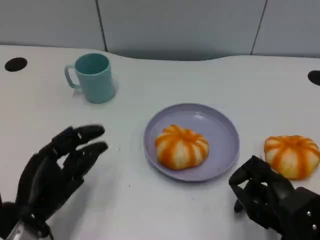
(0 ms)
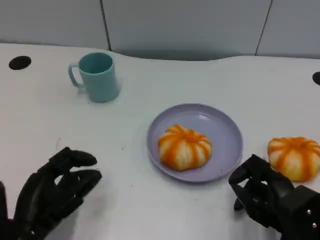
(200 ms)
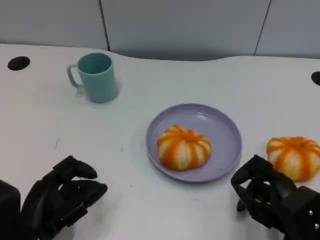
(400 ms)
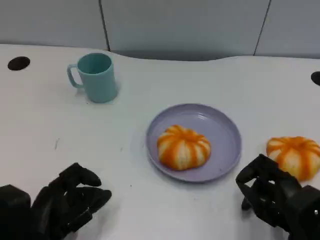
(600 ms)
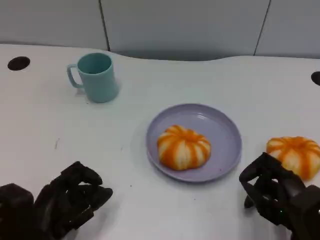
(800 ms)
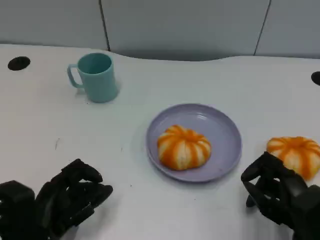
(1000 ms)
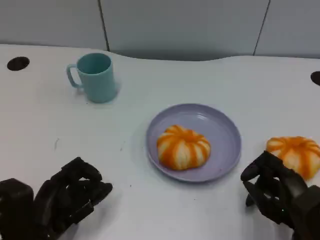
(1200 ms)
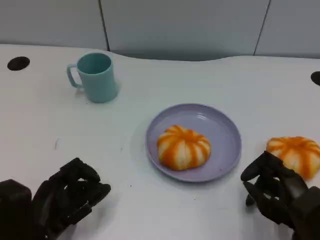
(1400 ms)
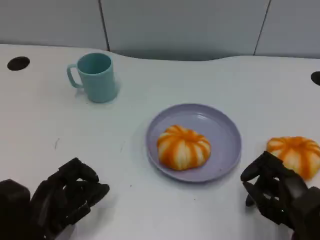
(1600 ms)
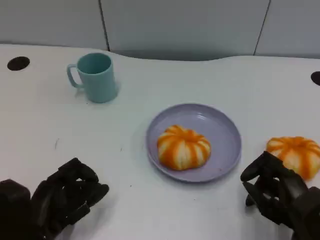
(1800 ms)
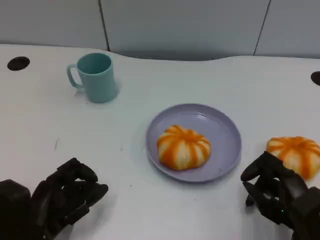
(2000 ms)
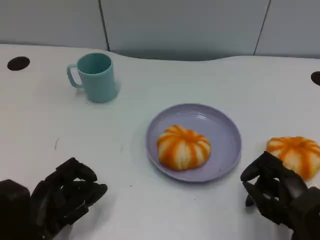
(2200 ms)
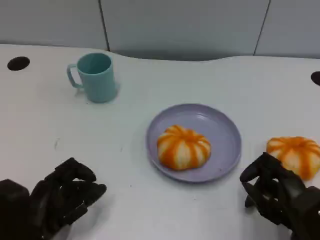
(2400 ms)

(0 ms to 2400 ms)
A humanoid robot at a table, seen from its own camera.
Task of the whole recording: Grasp the bread from the table and place it into the plate.
0 ms - 1200 ms: The hands make only small movements.
1200 ms - 2400 ms: Both hands stay put.

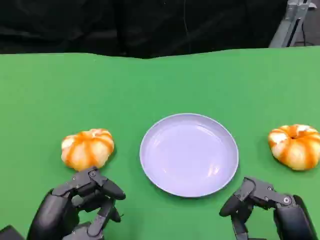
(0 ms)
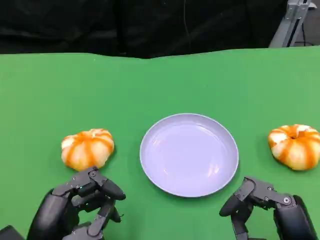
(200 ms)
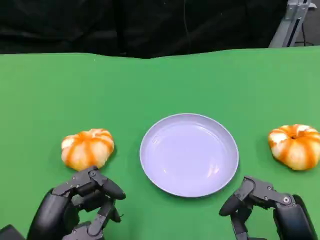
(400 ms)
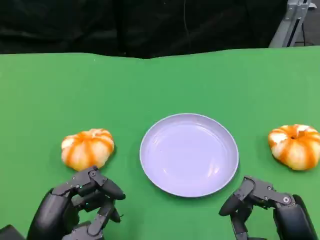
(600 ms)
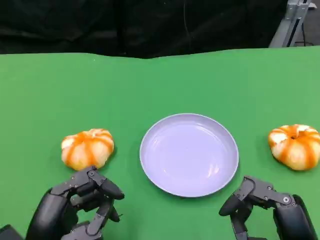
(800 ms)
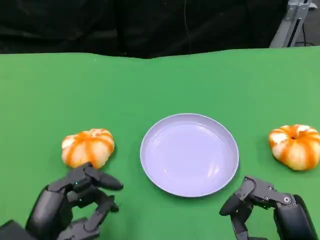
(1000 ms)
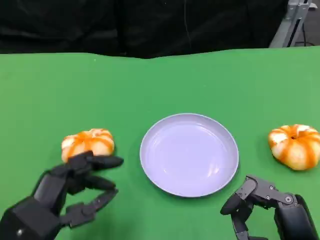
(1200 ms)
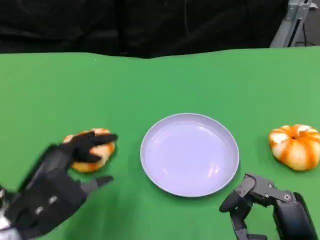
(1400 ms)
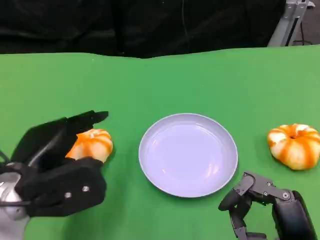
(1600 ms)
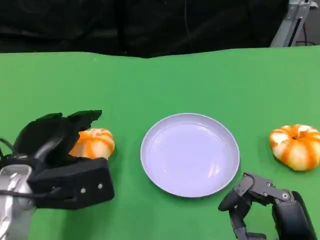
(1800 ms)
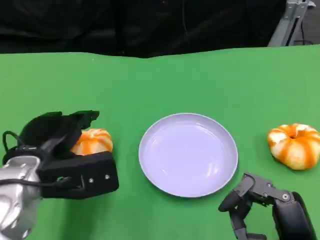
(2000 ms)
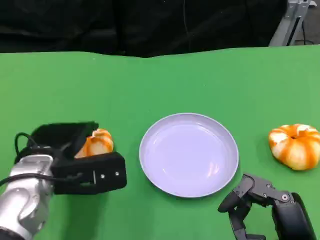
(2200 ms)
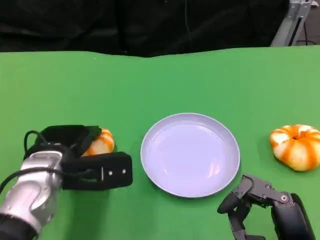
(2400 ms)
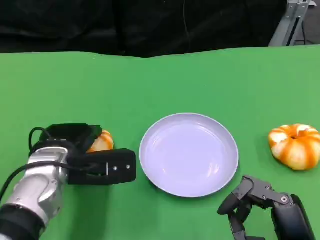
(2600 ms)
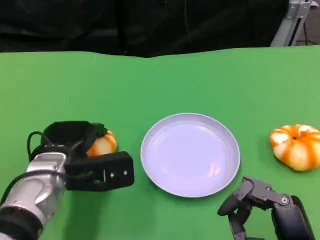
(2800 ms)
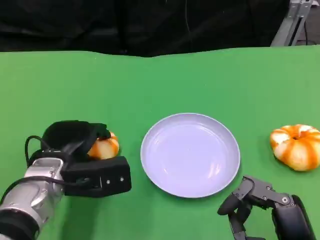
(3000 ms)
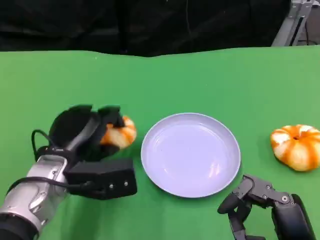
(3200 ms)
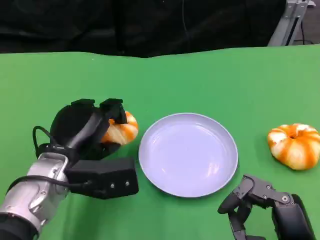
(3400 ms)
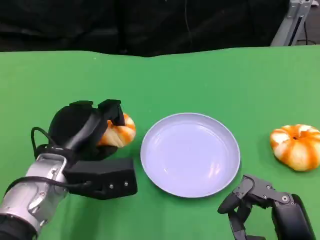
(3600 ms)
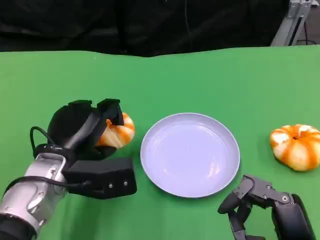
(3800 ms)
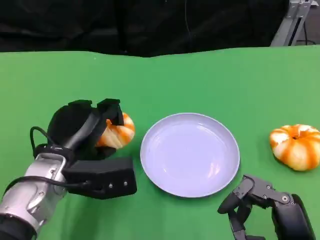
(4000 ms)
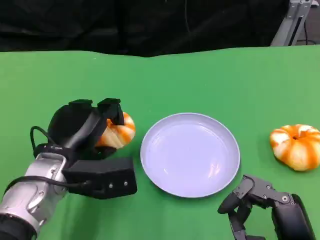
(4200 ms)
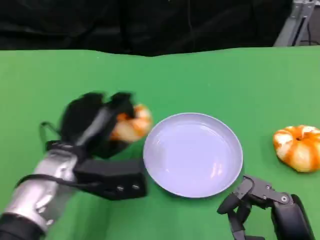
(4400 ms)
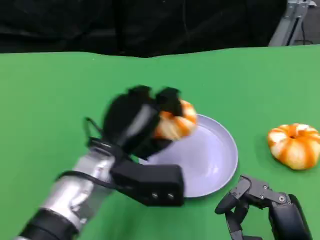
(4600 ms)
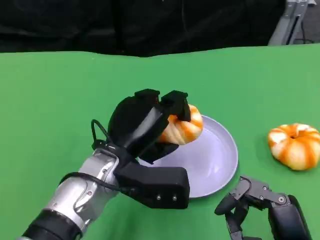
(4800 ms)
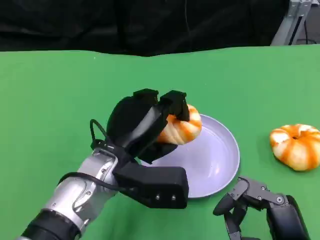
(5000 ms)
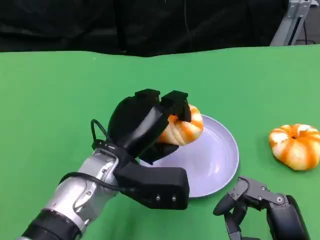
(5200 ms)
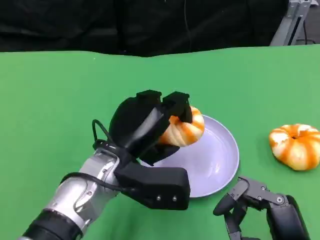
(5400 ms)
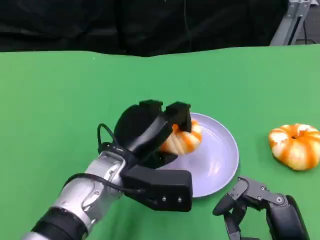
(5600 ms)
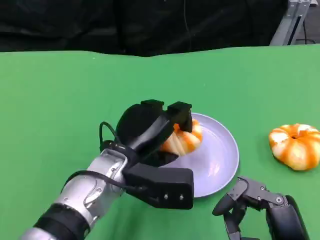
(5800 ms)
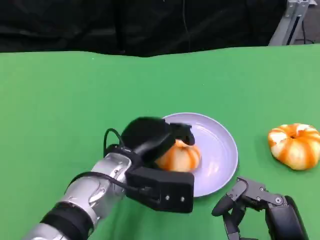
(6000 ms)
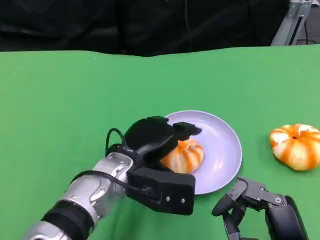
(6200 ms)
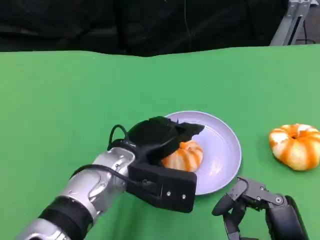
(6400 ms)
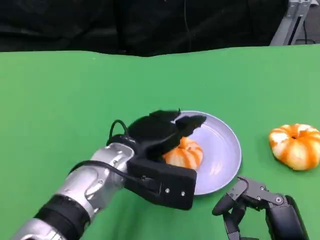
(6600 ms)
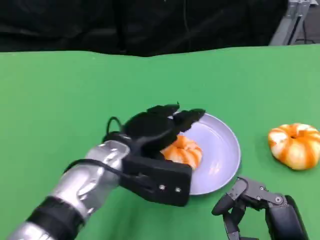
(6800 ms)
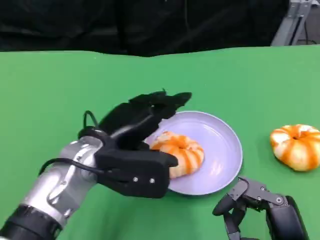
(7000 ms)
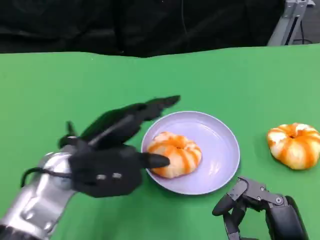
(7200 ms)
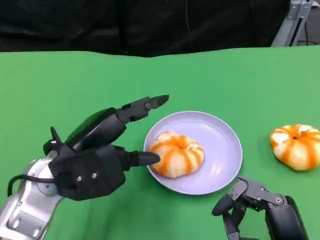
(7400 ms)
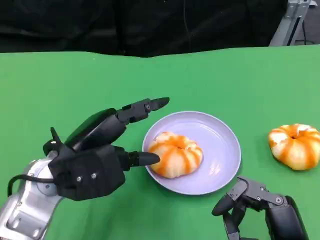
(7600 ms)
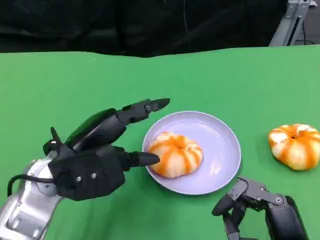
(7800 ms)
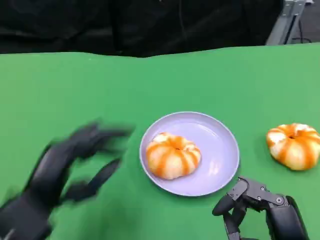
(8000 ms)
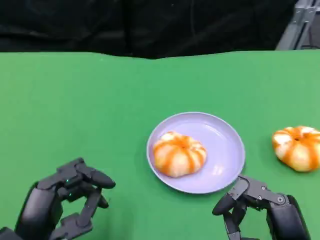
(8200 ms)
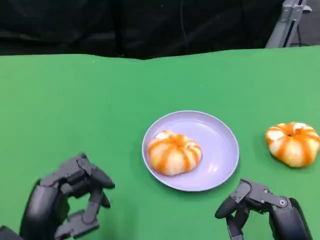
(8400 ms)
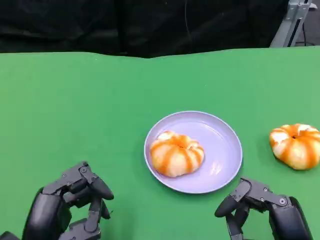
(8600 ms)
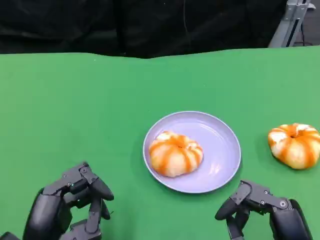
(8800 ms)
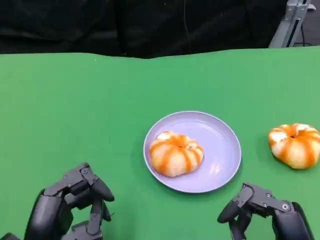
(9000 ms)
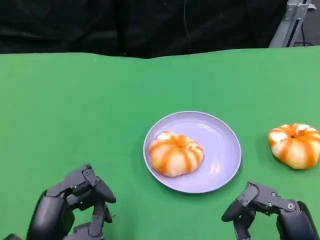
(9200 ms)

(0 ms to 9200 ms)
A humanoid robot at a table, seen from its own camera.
Task of the whole recording: Grasp the bread from the table and place it into the plate.
0 ms - 1600 ms: The left hand goes about 10 cm forward and upward.
1600 ms - 3000 ms: The left hand travels downward and forward by about 10 cm.
3000 ms - 4600 ms: The left hand moves to the right, roughly 10 cm.
6200 ms - 7600 ms: The left hand travels to the left by some 10 cm.
7600 ms - 9200 ms: The left hand shifts about 15 cm backward and downward.

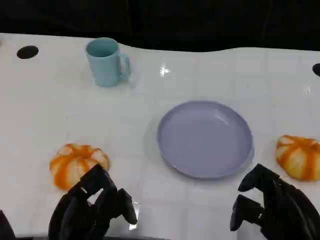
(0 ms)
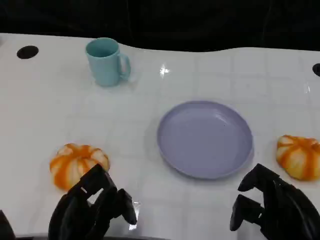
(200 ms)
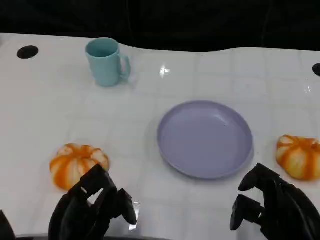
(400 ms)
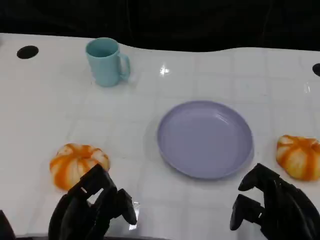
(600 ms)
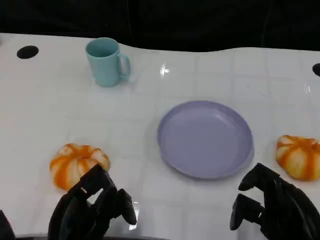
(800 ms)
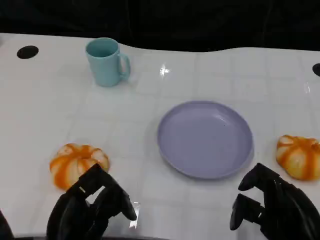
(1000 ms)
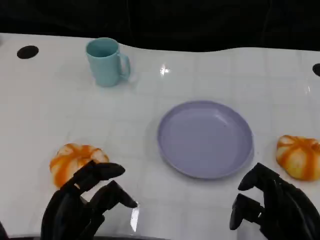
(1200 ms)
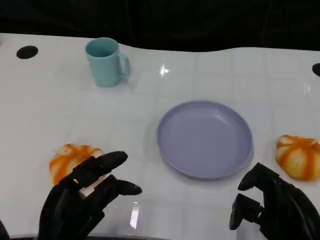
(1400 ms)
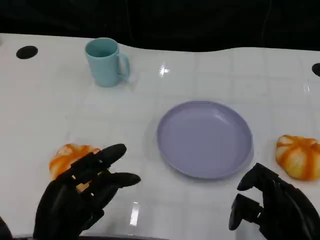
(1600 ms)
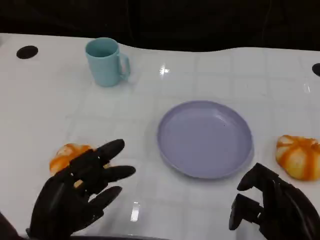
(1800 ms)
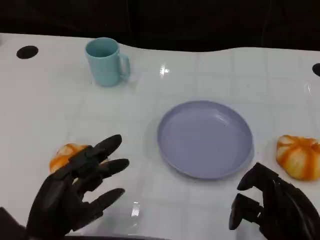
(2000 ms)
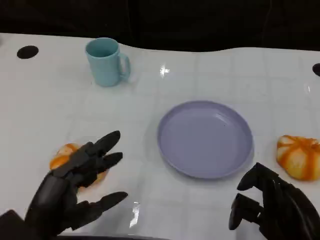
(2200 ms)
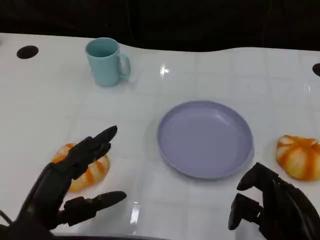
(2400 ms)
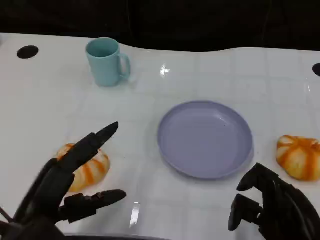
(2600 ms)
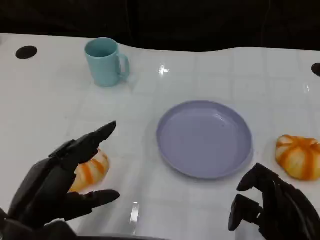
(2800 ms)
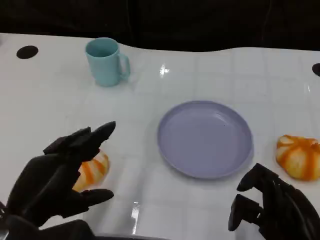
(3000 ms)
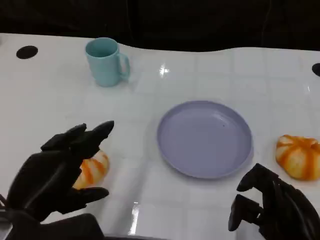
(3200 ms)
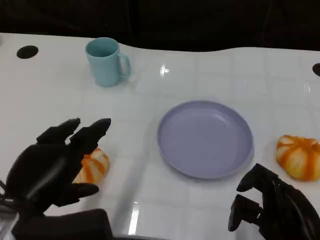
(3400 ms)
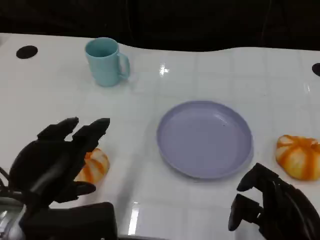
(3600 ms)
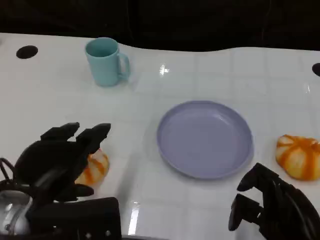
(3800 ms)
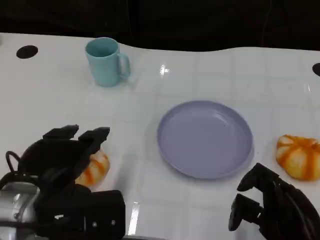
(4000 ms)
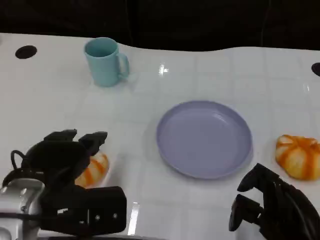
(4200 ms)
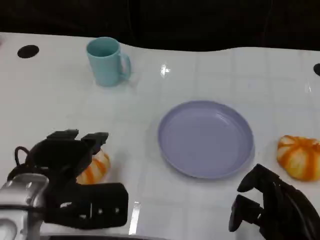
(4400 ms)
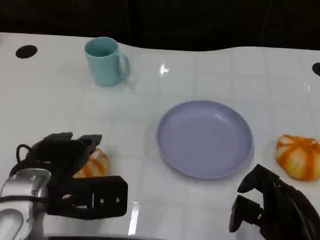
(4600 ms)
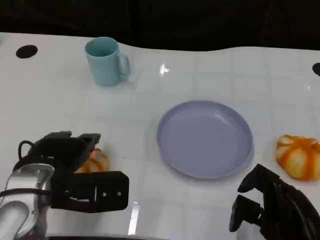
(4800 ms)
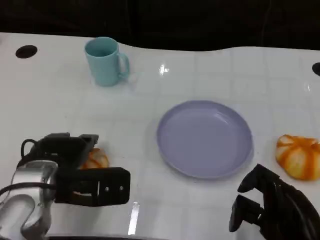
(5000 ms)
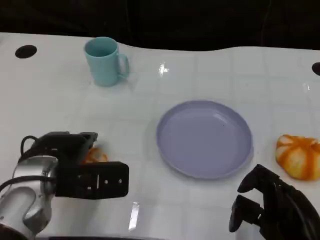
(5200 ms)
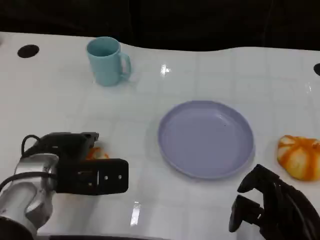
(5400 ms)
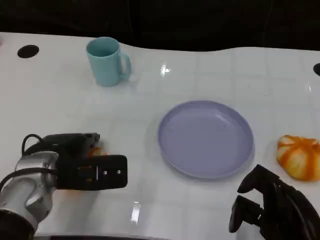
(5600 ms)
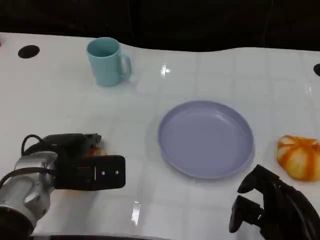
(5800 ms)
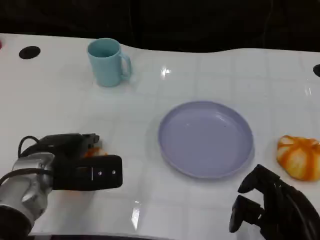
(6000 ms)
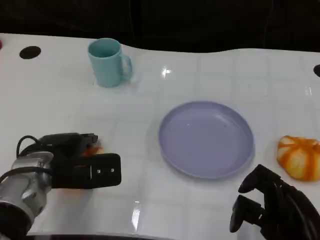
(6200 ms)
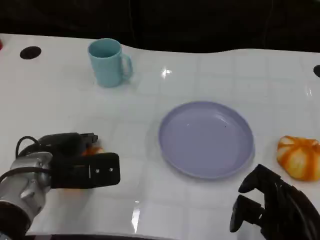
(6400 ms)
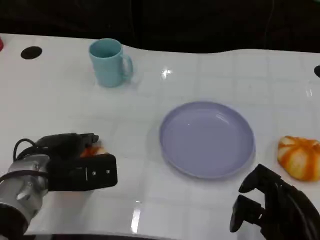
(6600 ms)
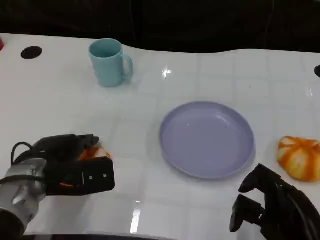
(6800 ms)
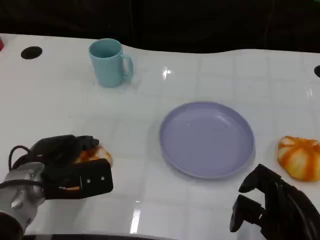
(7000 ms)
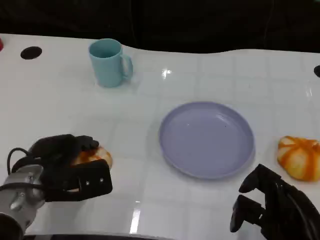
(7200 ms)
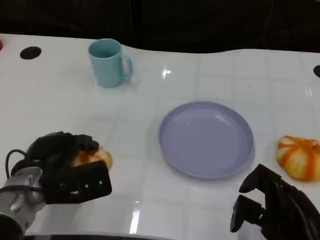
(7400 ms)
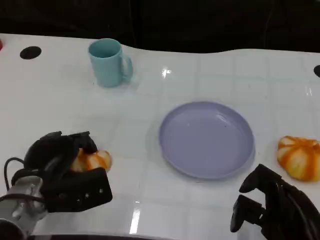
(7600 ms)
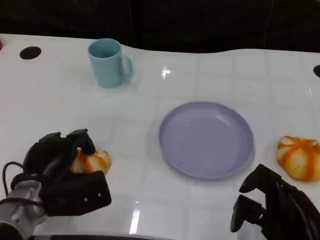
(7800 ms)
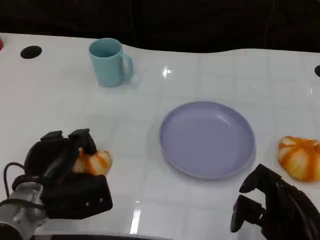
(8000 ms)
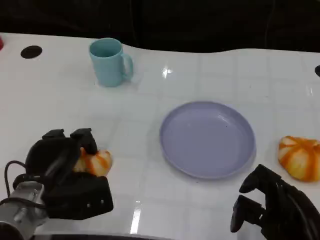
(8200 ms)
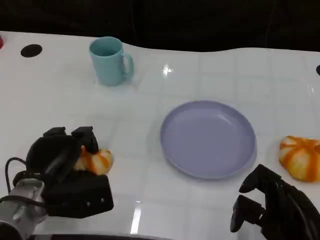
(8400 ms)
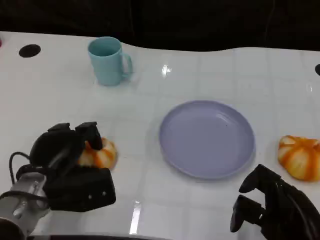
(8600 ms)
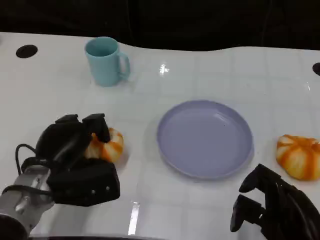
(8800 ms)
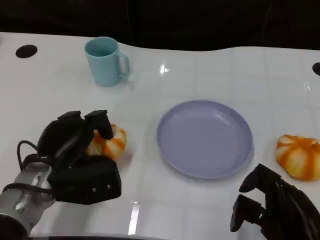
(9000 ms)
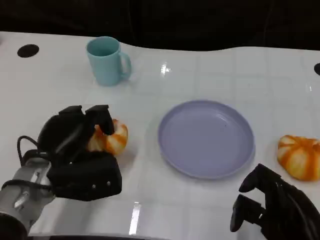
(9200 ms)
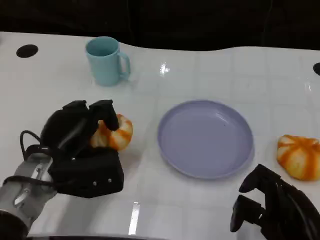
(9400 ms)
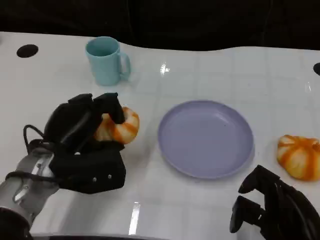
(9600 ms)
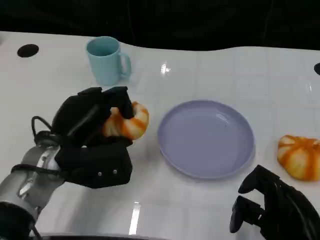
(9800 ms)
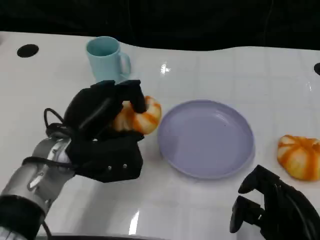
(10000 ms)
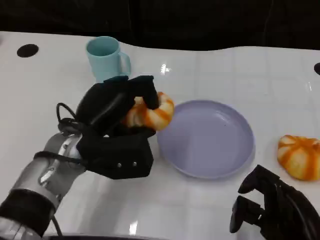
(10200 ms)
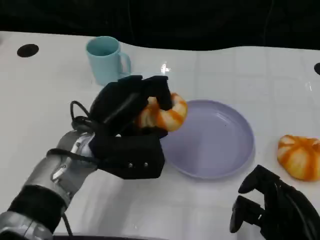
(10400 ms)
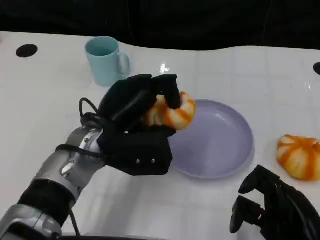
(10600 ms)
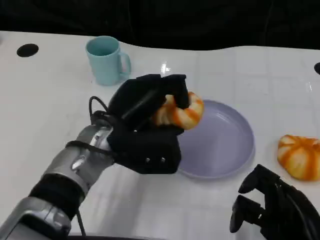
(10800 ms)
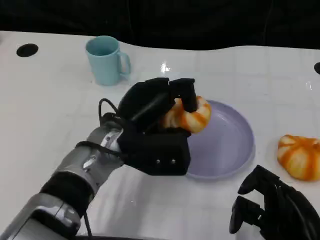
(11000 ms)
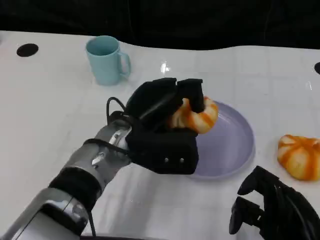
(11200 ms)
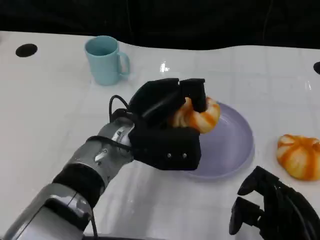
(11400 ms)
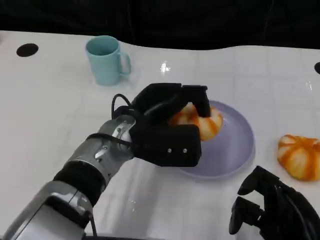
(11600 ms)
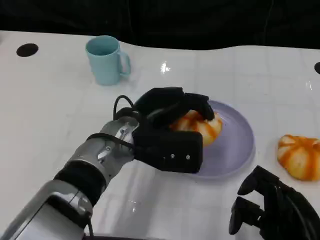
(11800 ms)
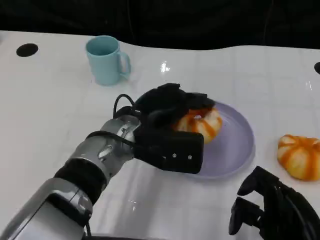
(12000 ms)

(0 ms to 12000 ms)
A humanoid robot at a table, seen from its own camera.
Task of the whole recording: Grasp the bread from the table and place it into the plate.
0 ms - 1600 ms: There are only small adjustments of the hands.
1600 ms - 3000 ms: The left hand heads upward, covering some 5 cm.
3000 ms - 4400 ms: The left hand moves forward, about 5 cm.
4400 ms - 6000 ms: The left hand moves forward, approximately 5 cm.
7600 ms - 9000 ms: The hands move only a little.
9000 ms - 10400 ms: The left hand moves to the right and upward, some 10 cm.
10400 ms - 12000 ms: The left hand heads to the right, covering approximately 5 cm.
